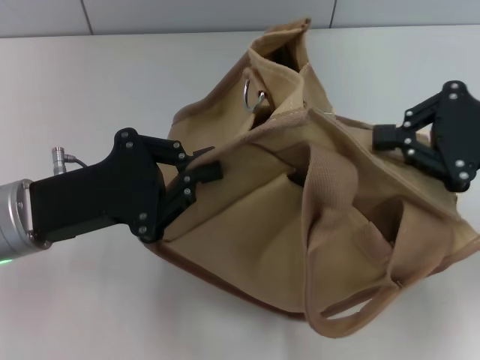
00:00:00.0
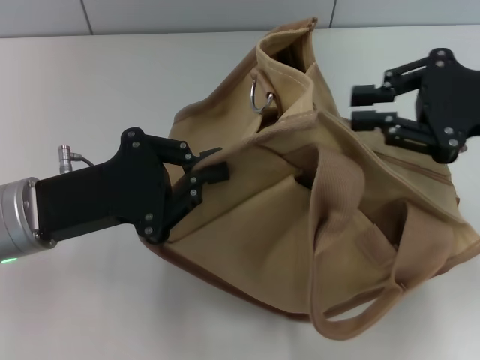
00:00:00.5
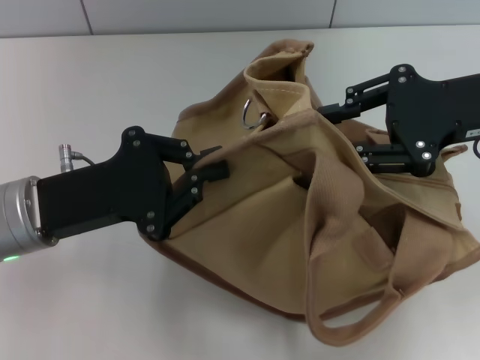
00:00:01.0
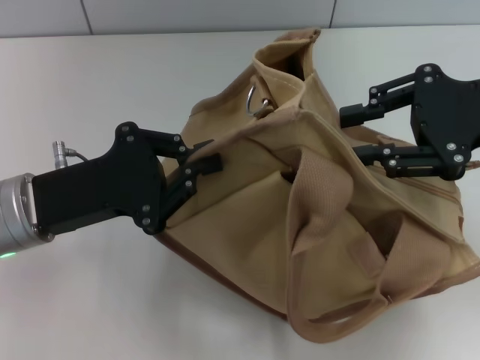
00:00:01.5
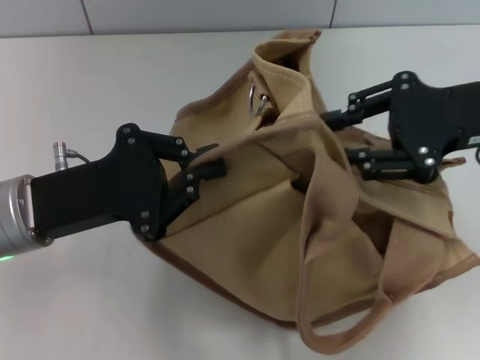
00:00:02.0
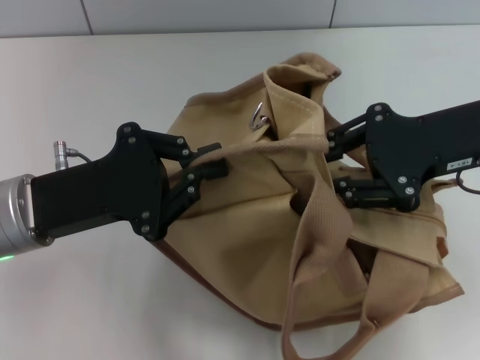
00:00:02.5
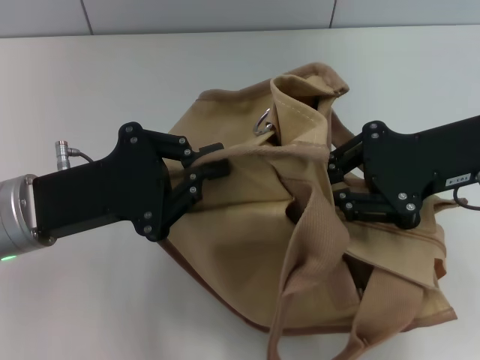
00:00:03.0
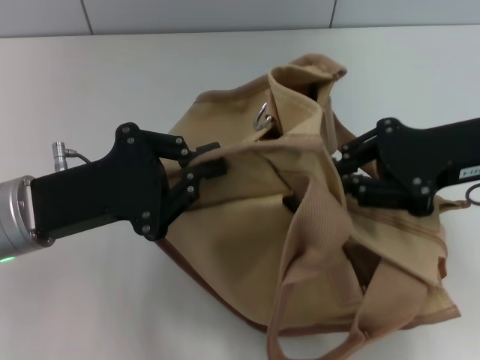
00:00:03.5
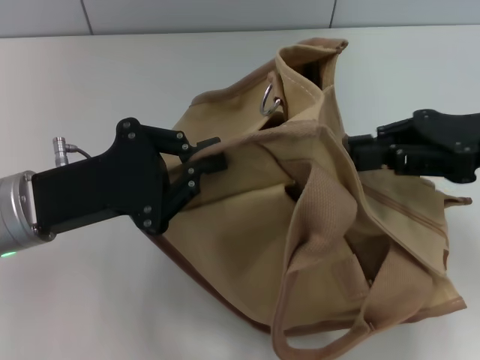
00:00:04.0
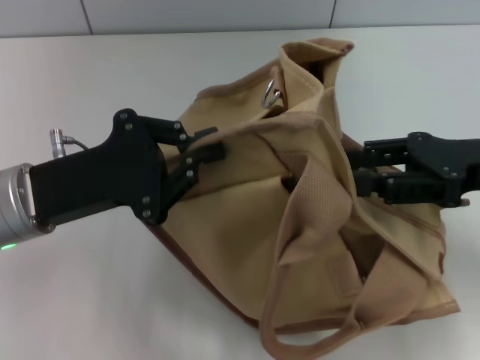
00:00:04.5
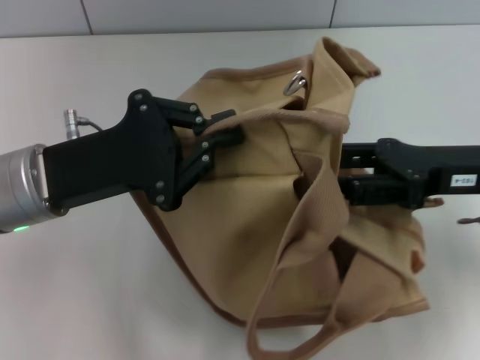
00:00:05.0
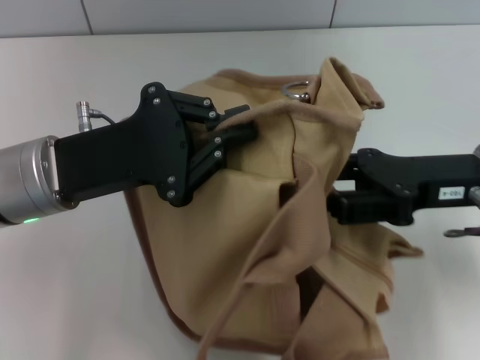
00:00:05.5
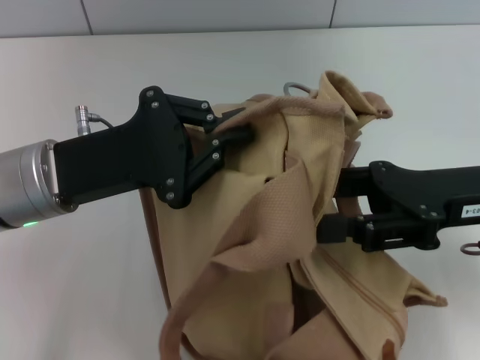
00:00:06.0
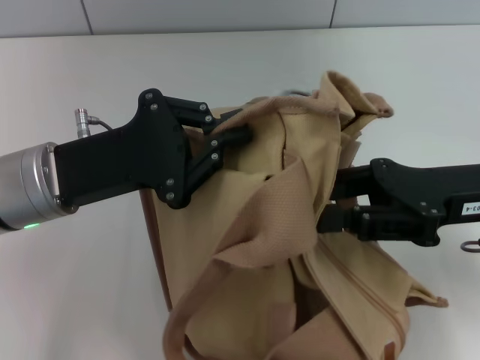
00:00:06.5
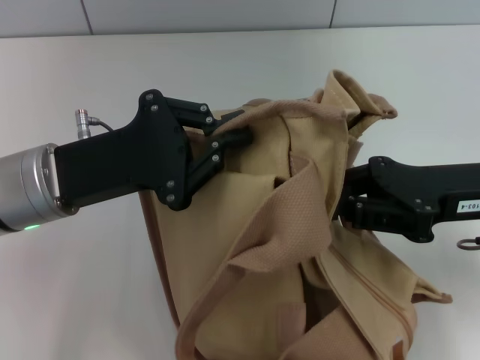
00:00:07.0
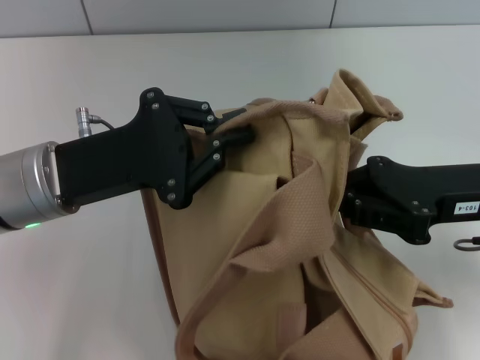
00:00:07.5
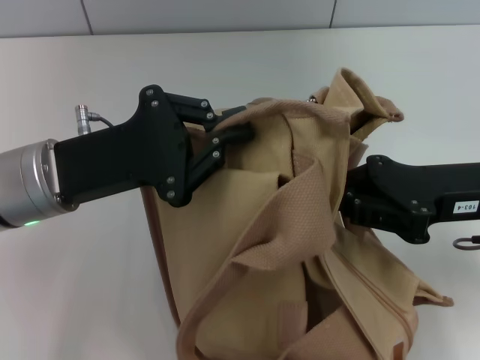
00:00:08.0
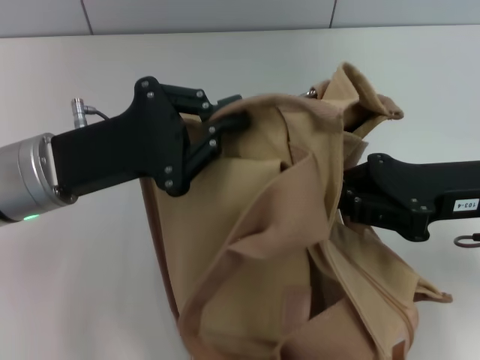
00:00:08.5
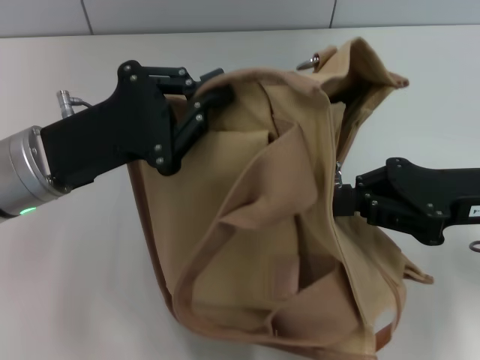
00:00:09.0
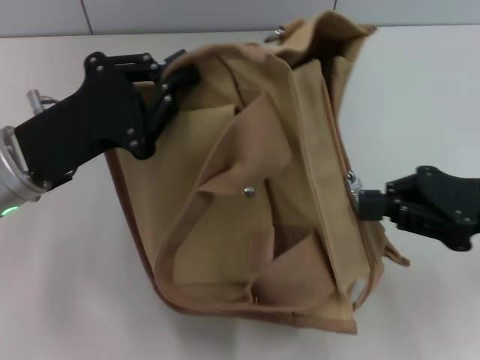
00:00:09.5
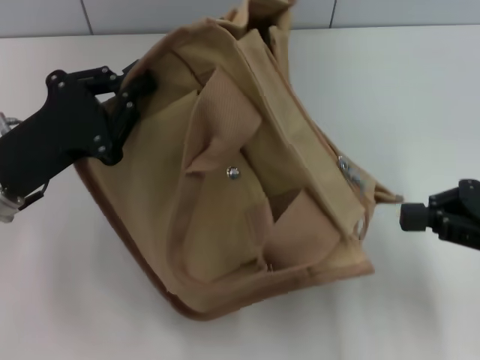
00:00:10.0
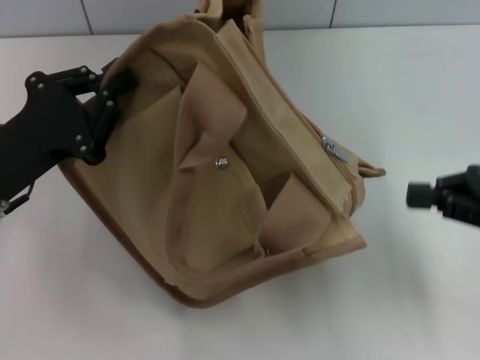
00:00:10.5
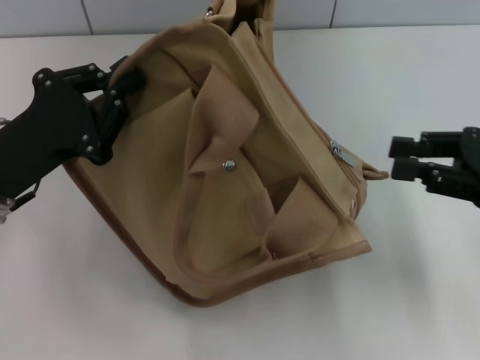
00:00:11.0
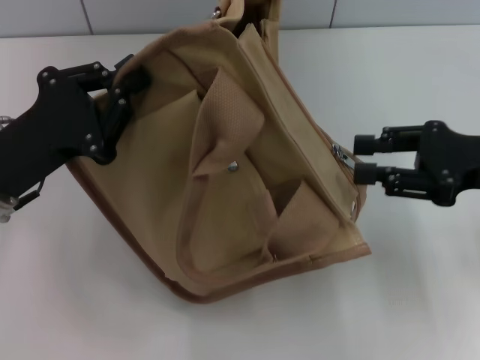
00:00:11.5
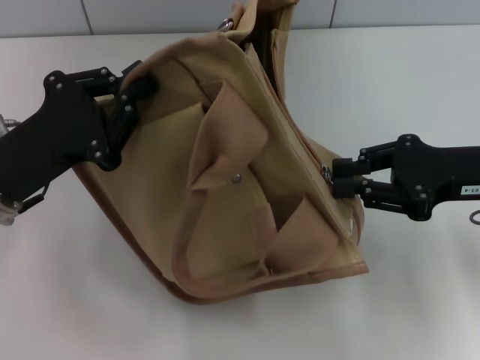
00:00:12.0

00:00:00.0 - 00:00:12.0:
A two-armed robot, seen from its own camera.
00:00:00.0 - 00:00:02.0: The right gripper opens its fingers.
00:00:04.0 - 00:00:06.0: The right gripper changes place by approximately 5 cm, and opens its fingers.
00:00:06.0 - 00:00:08.0: The right gripper closes.
00:00:08.0 - 00:00:10.0: The left gripper moves some 5 cm. The right gripper travels to the right by some 10 cm.
00:00:10.0 - 00:00:12.0: The right gripper changes place by approximately 5 cm, and opens.

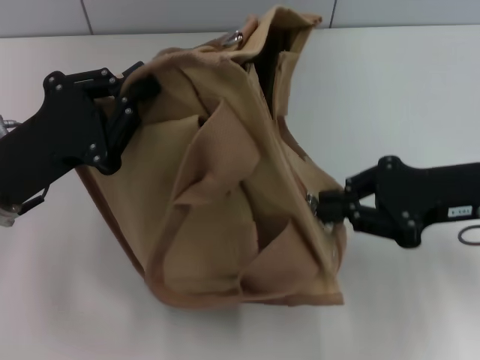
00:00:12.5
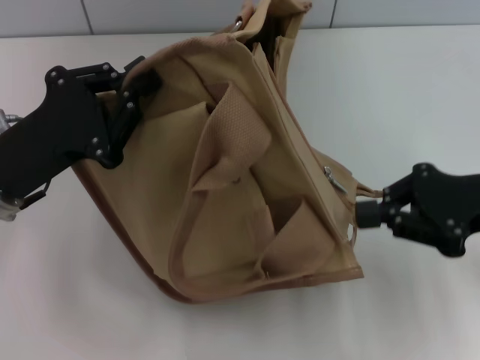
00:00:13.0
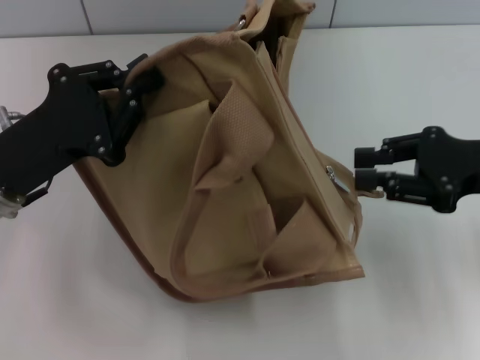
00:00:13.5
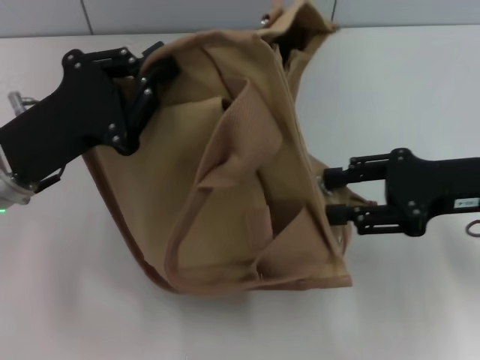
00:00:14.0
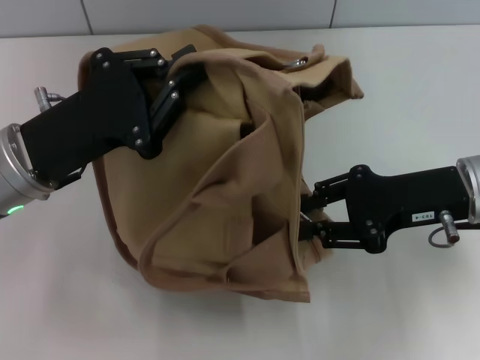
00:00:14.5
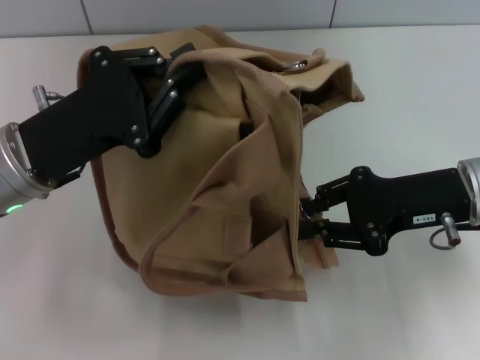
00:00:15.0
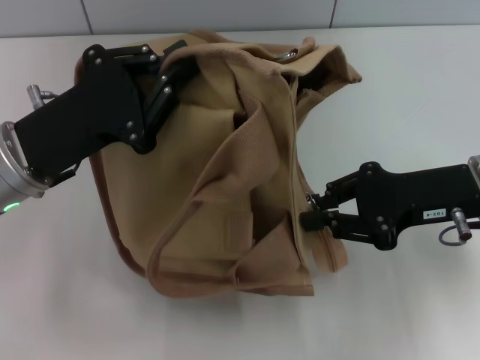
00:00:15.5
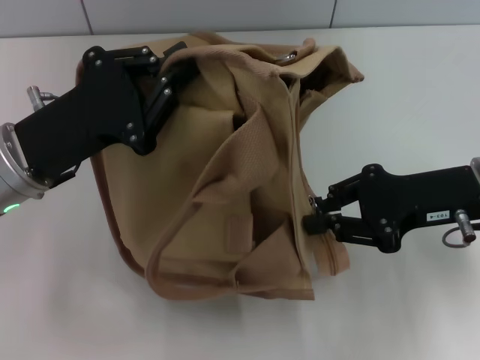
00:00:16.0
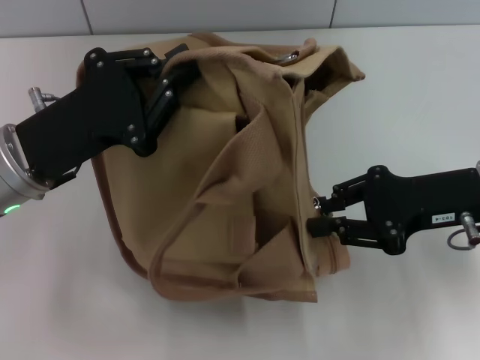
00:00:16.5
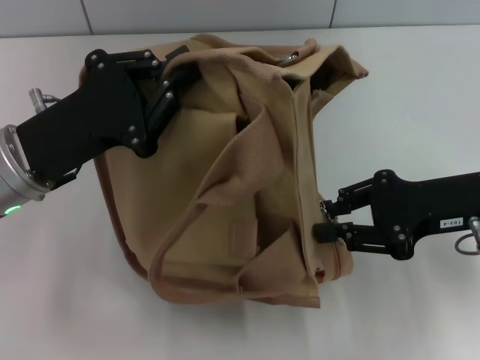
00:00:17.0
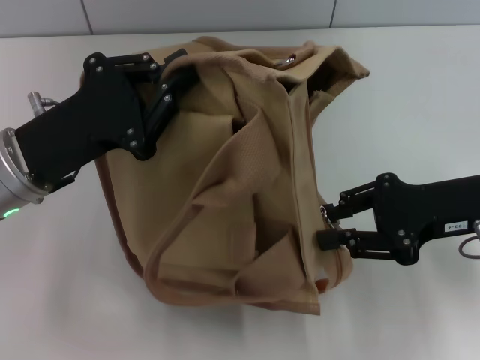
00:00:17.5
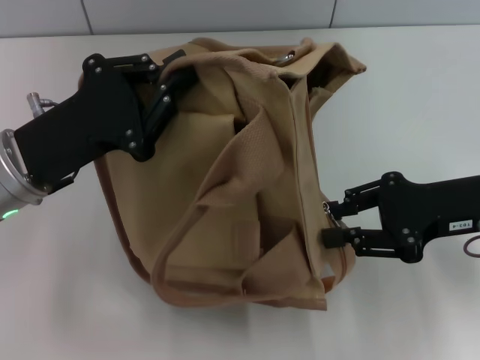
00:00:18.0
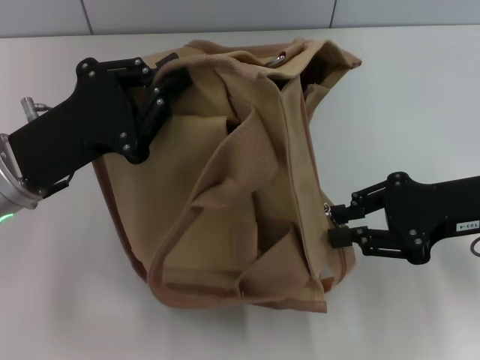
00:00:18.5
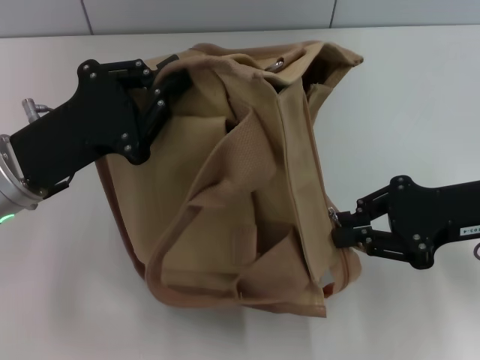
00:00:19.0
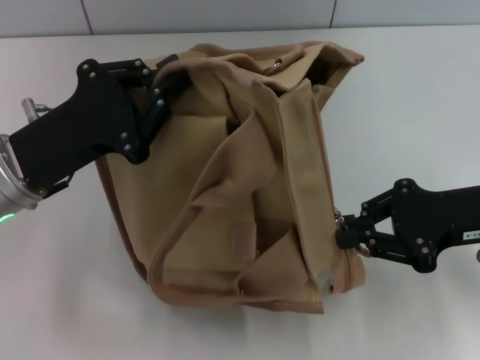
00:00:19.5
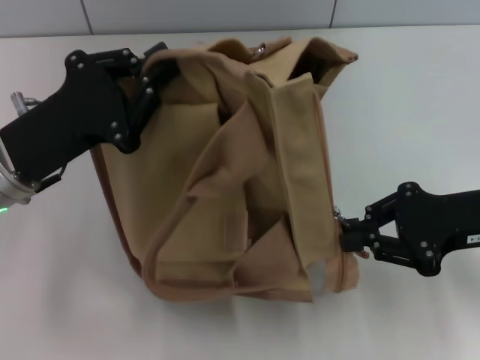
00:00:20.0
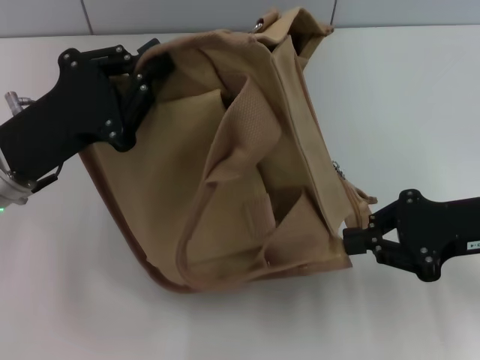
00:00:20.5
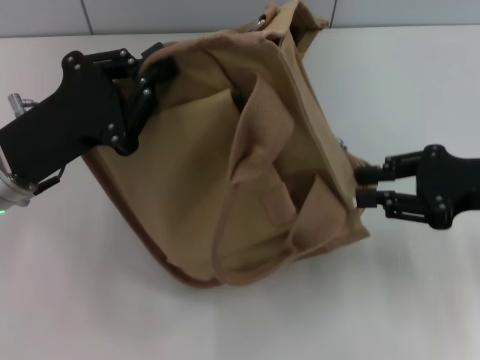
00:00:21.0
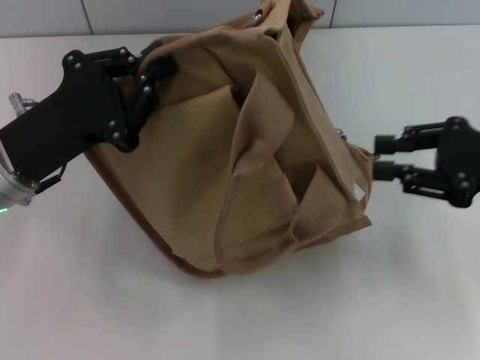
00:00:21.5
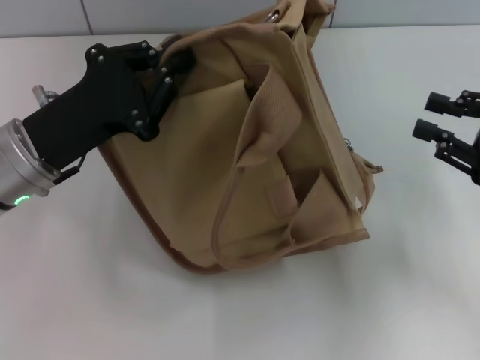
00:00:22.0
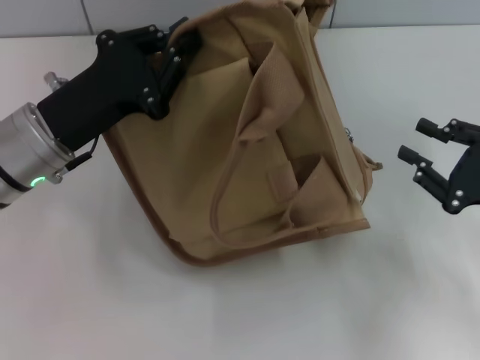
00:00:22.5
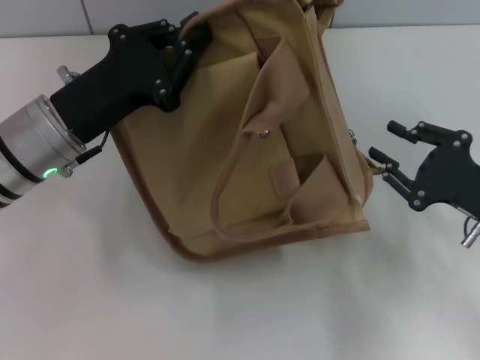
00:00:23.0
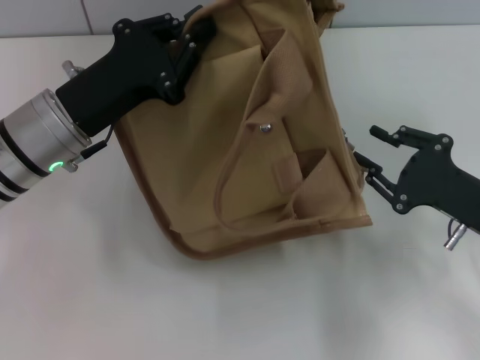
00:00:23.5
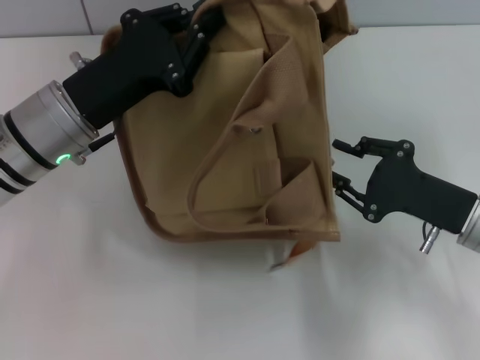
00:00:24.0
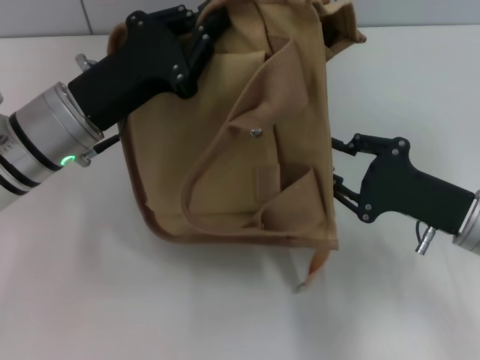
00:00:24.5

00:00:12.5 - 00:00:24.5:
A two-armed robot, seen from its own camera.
00:00:14.5 - 00:00:18.5: The grippers make only small movements.
00:00:18.5 - 00:00:20.5: The right gripper closes.
00:00:20.5 - 00:00:22.5: The right gripper changes place by roughly 5 cm, and opens.
00:00:22.5 - 00:00:24.5: The right gripper travels to the left by approximately 5 cm.

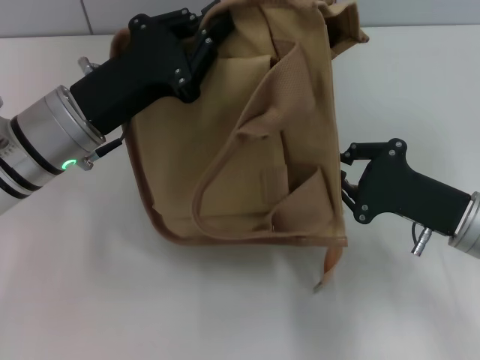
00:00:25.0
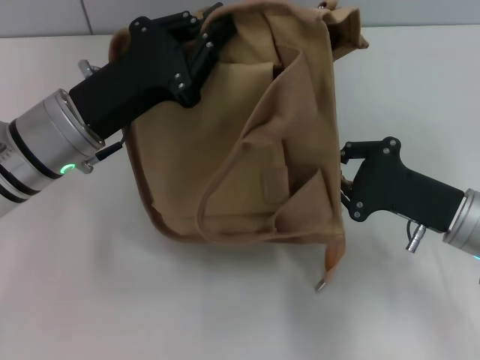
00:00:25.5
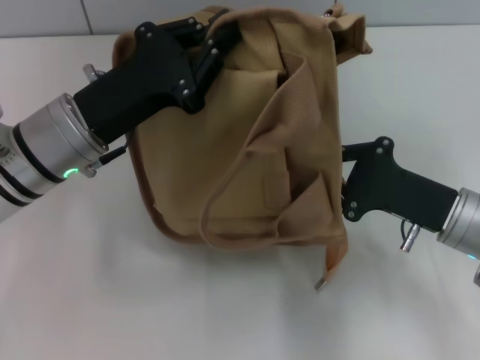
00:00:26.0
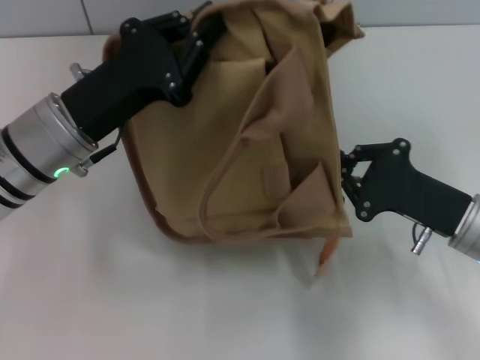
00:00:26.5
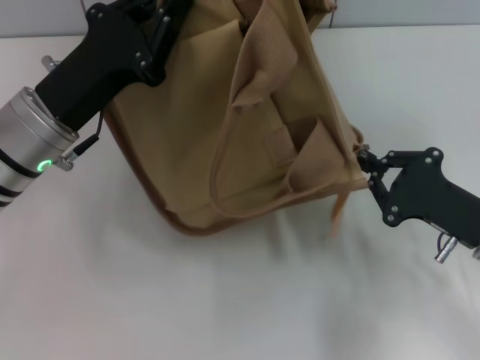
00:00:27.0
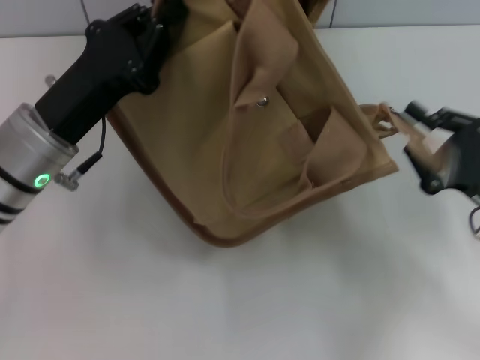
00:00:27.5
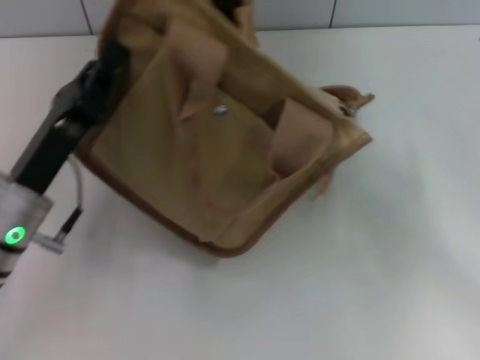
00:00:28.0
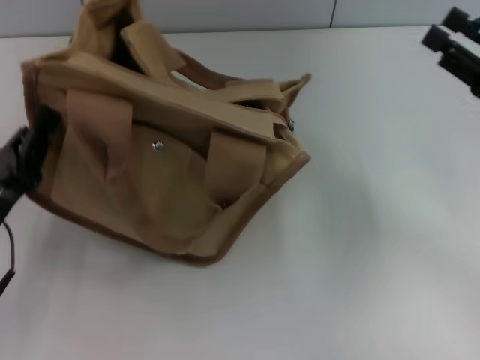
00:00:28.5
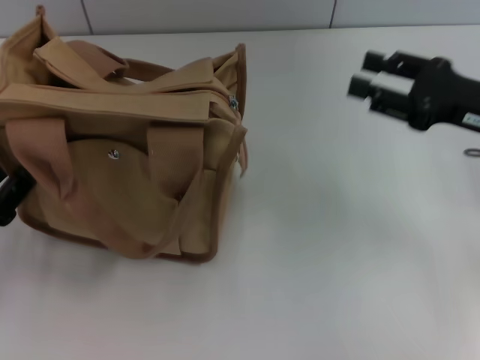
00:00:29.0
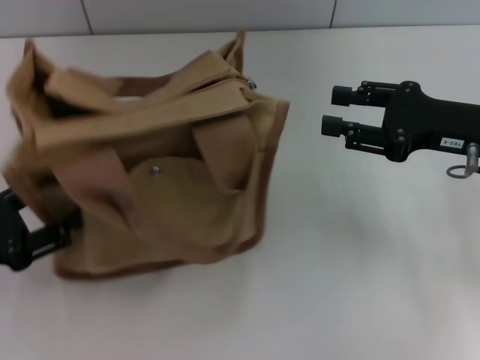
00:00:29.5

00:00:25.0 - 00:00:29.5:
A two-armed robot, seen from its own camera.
Step, 00:00:25.0 - 00:00:27.5: Pull open the zipper with your right hand.
00:00:27.0 - 00:00:29.5: The left gripper heads to the left and backward, covering some 15 cm, and opens its fingers. The right gripper travels upward and forward by about 10 cm, and opens its fingers.
